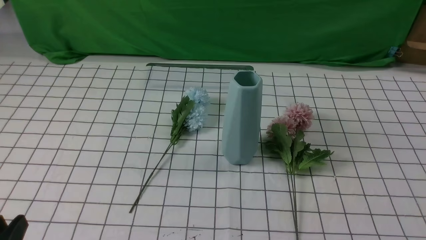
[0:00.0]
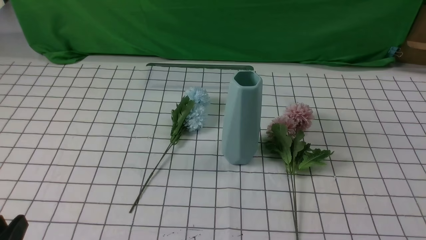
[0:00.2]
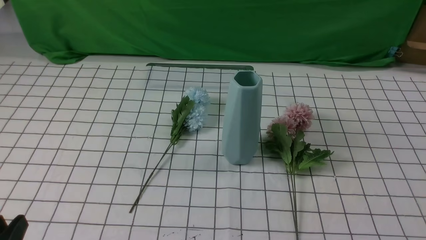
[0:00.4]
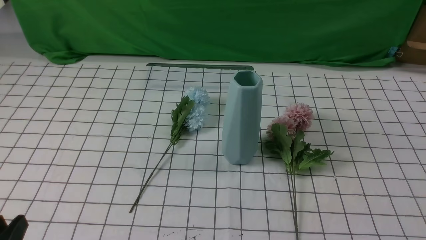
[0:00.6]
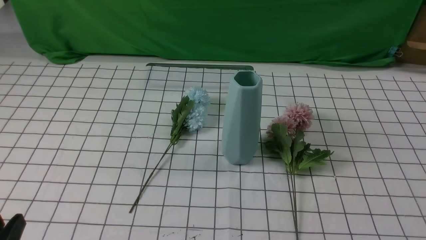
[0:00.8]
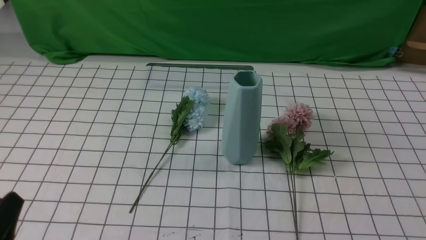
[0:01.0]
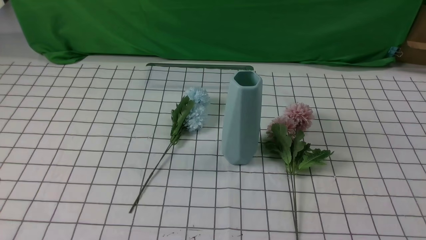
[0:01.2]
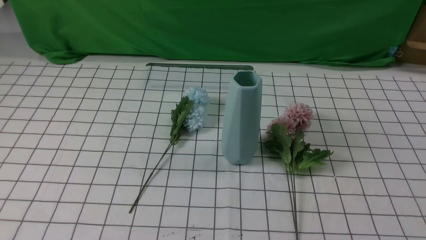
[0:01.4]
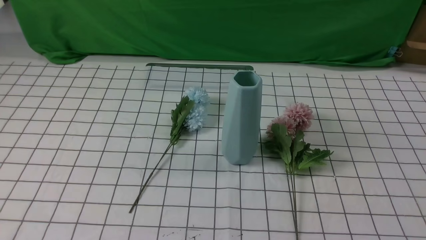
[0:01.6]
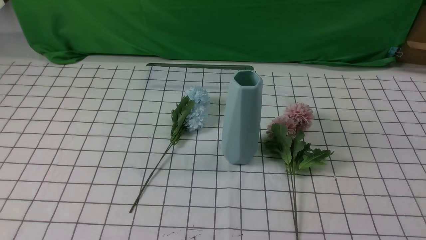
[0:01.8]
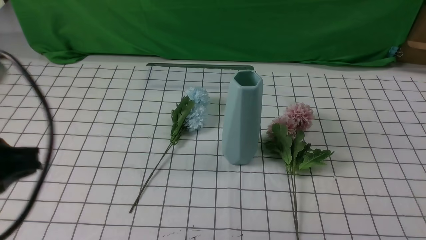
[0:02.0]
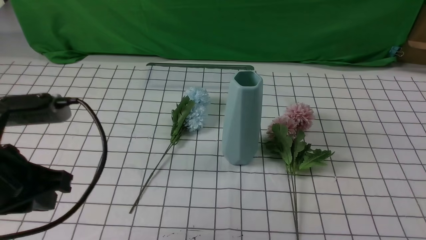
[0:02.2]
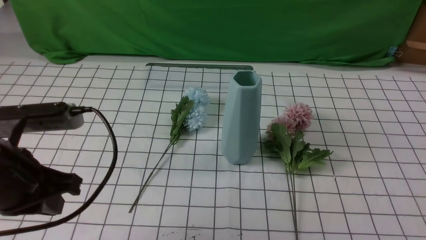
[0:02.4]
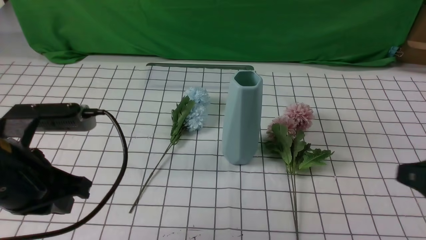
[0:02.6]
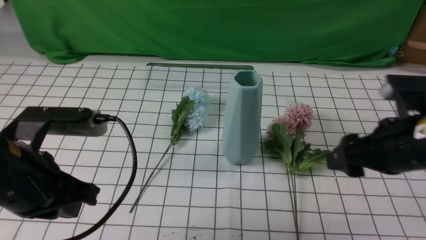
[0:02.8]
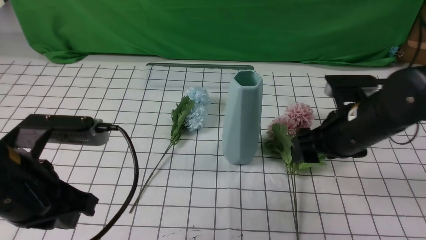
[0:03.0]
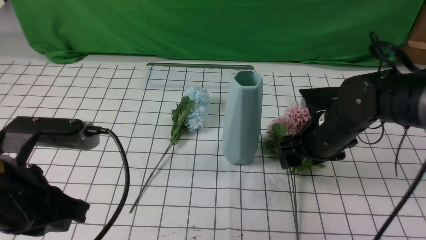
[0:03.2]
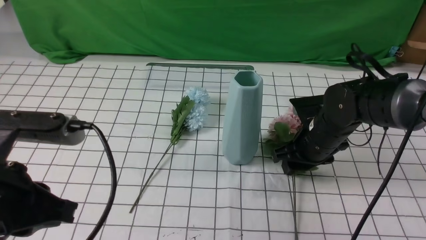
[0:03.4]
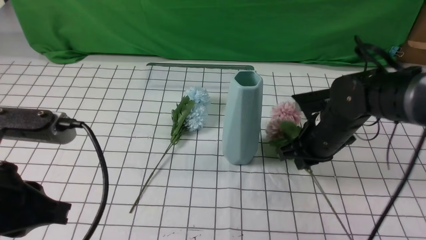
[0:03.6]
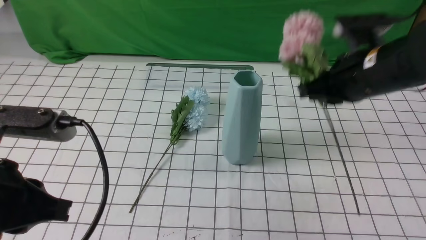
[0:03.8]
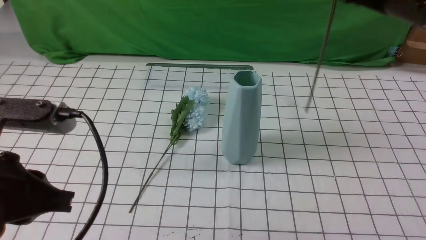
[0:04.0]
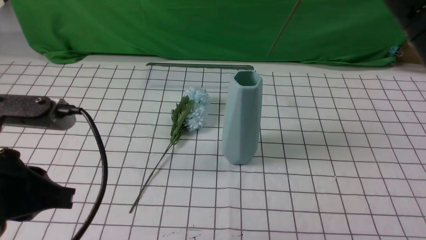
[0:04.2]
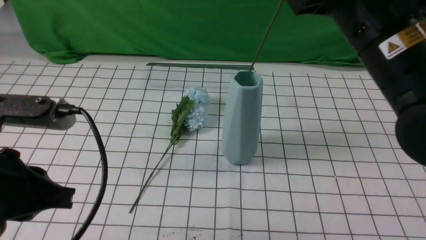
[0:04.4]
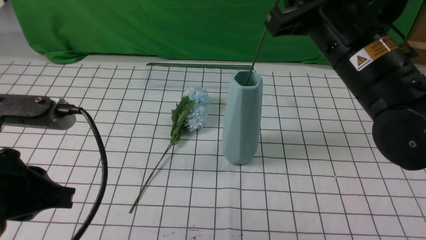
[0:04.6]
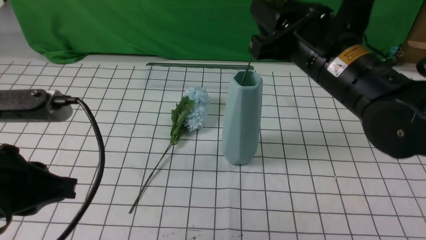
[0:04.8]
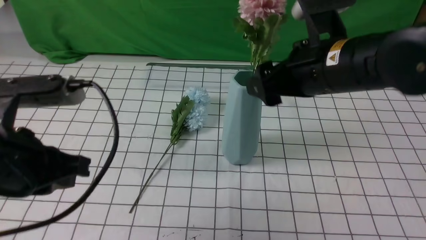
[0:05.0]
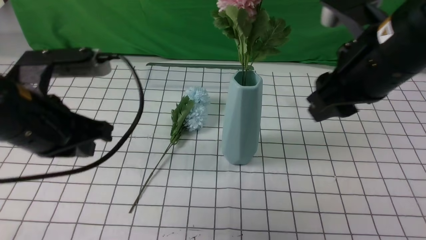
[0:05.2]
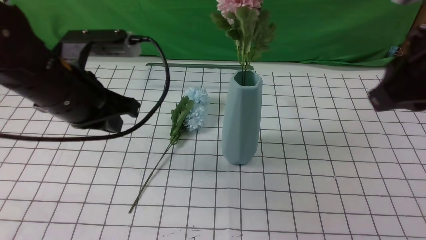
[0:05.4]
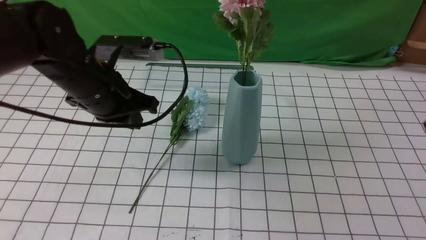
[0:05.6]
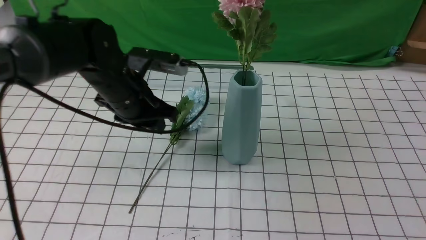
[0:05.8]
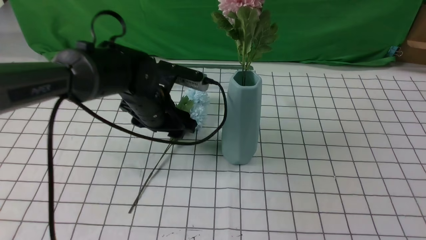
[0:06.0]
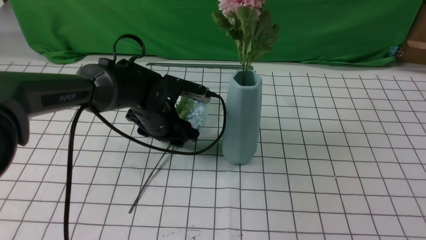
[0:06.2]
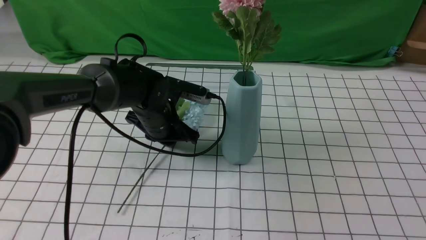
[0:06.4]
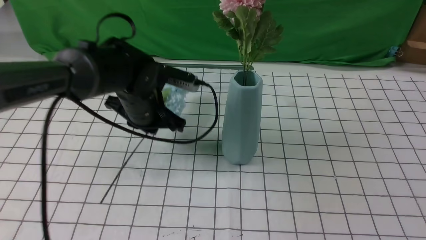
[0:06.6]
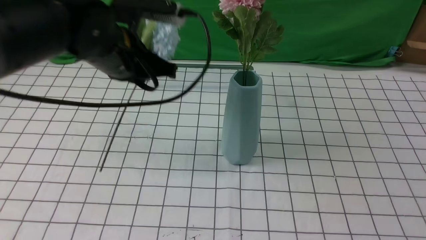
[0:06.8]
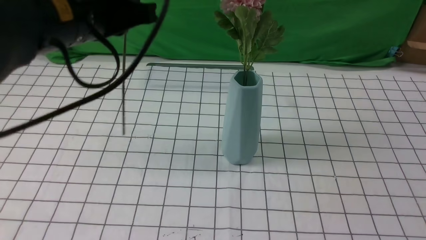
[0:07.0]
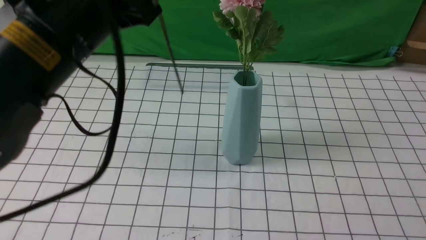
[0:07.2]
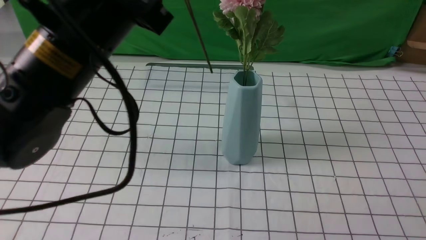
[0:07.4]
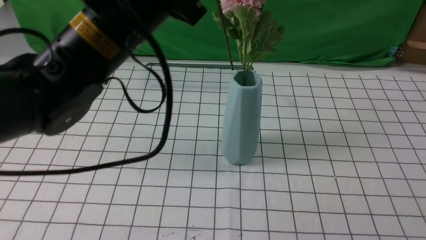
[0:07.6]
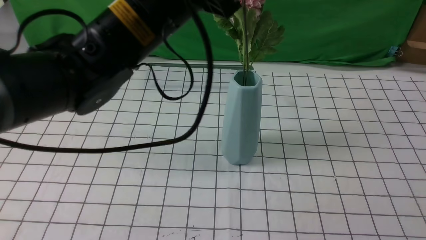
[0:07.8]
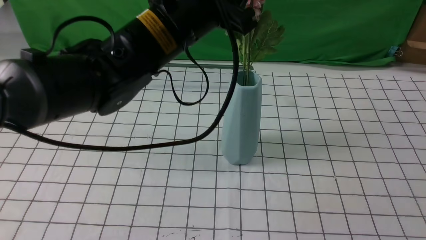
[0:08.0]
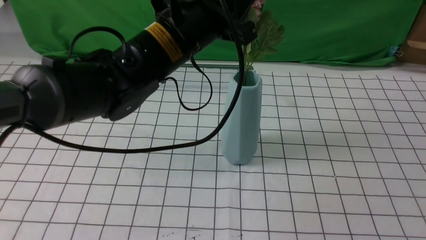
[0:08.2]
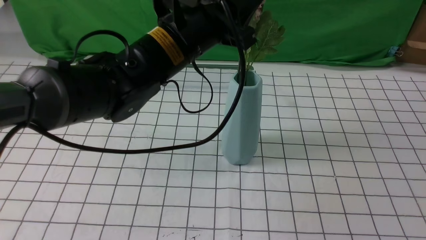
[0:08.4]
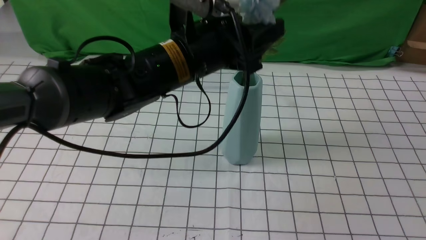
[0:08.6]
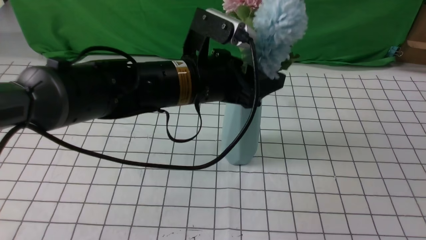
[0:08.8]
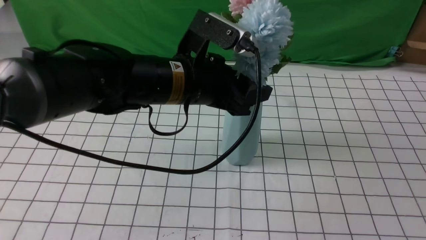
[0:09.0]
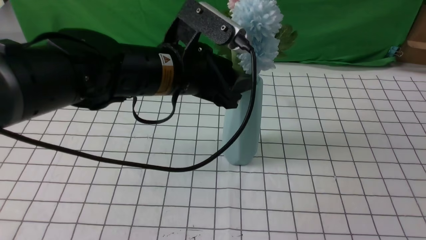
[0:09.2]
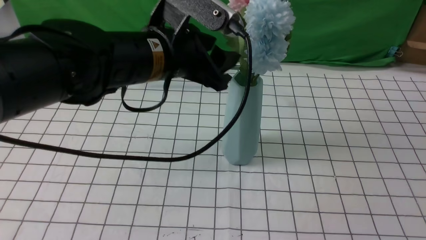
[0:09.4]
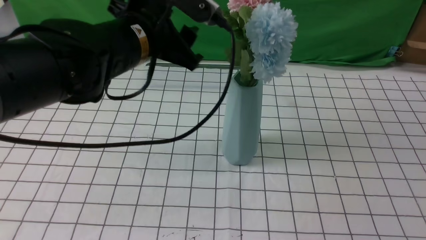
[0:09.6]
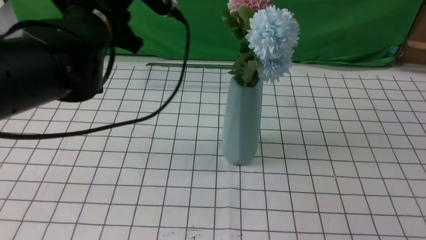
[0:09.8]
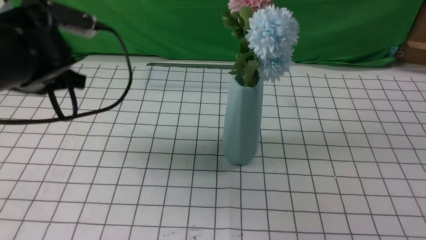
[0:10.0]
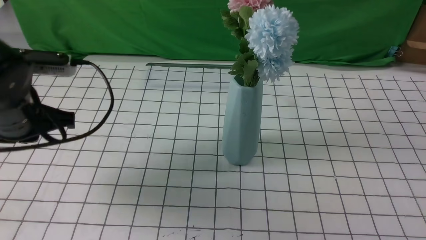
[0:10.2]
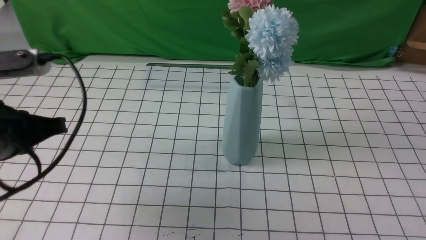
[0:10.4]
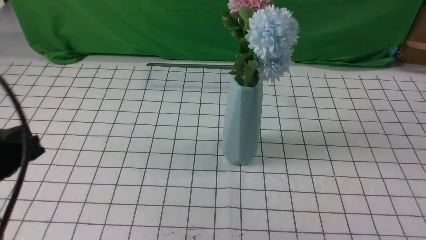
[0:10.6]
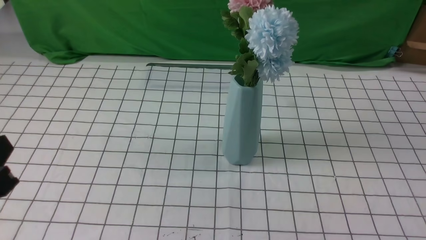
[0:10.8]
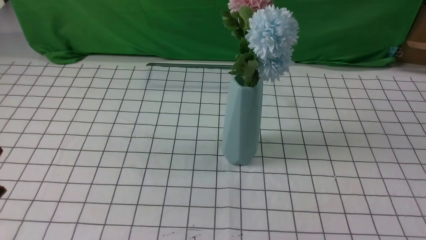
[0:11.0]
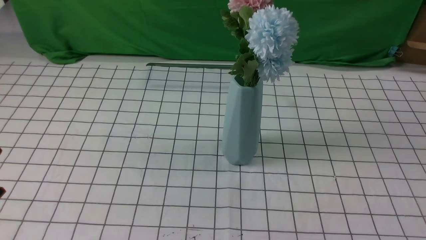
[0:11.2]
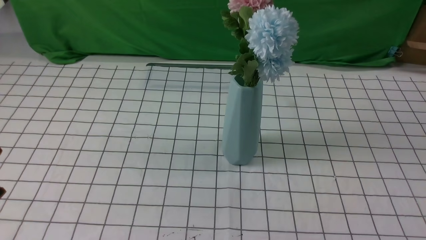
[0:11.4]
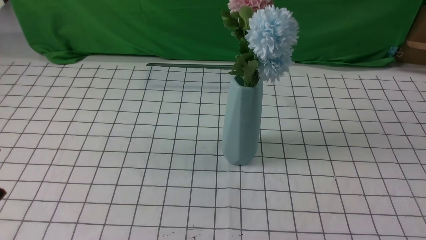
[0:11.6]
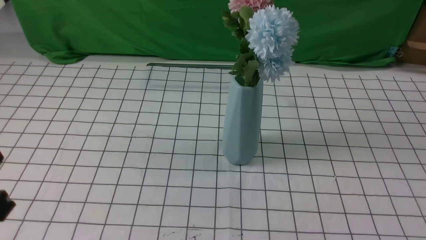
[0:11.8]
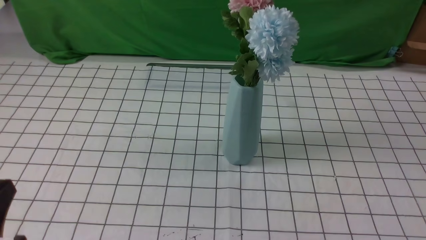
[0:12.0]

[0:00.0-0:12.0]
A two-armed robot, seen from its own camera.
Task of the whole recording: insert the flowers into the vase on the table with the white tablecloth.
Step, 0:00.0 to 0:03.4: use the right arm to grab a bunch of fresh flowers.
Step, 0:03.6 to 0:05.0: use the right arm to insert the flowers into the vase.
Step, 0:05.2 to 0:06.4: use the left arm to grab a bunch of fresh flowers.
Step, 0:06.6 to 0:09.2: use the left arm to insert the flowers into the vase.
0:01.6 to 0:03.0: The right gripper travels forward and to the left by roughly 30 cm, and opens, while the left gripper shifts about 15 cm forward and to the right.
0:03.0 to 0:04.4: The right gripper shifts roughly 15 cm upward, and closes up.
0:04.4 to 0:06.0: The left gripper travels forward, downward and to the right by approximately 30 cm, and opens its fingers. Meanwhile the right gripper is displaced backward and to the right by some 20 cm, and opens, then closes once more.
0:06.0 to 0:07.6: The left gripper goes about 20 cm upward and backward, and closes its fingers.
0:07.6 to 0:09.0: The left gripper is displaced downward and to the right by some 10 cm, and opens up.
0:09.0 to 0:10.4: The left gripper moves to the left and backward, roughly 20 cm, and closes up.
0:10.4 to 0:12.0: The left gripper heads backward and downward, covering roughly 15 cm; the right gripper changes place by about 5 cm.

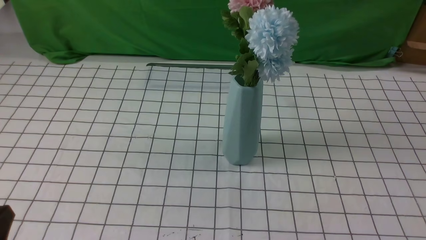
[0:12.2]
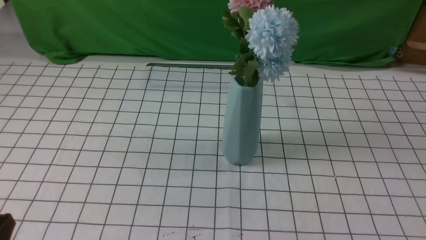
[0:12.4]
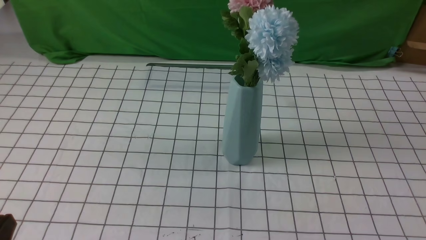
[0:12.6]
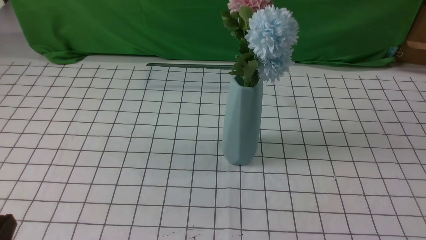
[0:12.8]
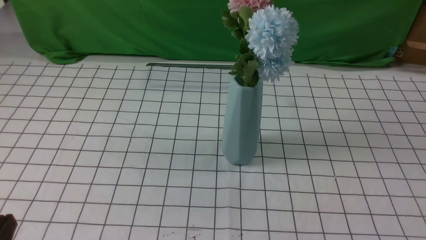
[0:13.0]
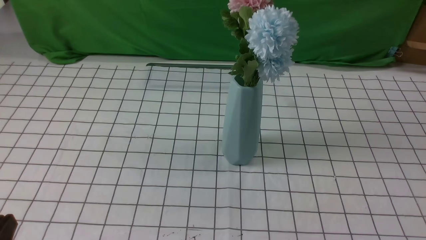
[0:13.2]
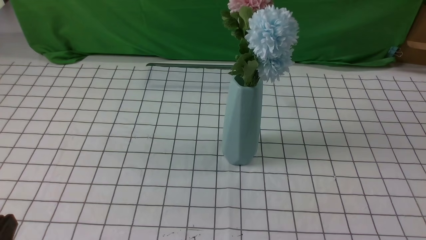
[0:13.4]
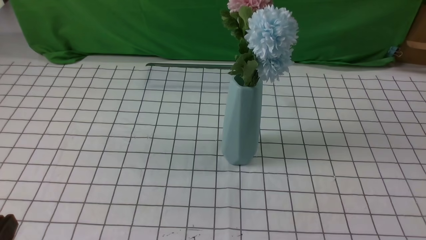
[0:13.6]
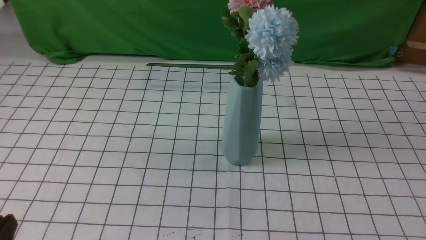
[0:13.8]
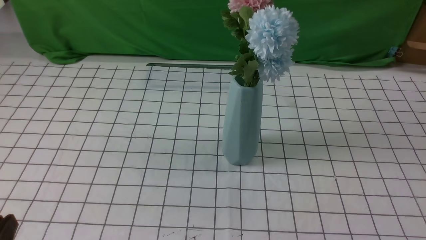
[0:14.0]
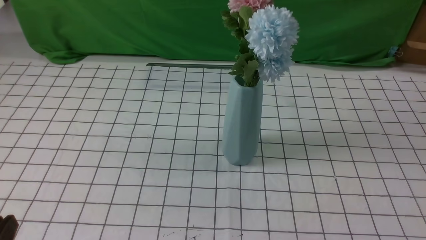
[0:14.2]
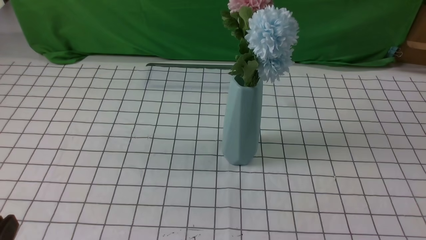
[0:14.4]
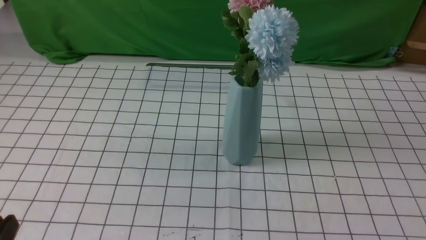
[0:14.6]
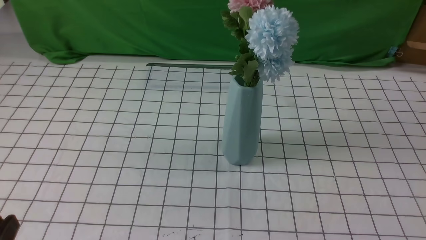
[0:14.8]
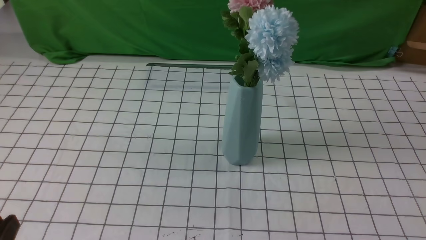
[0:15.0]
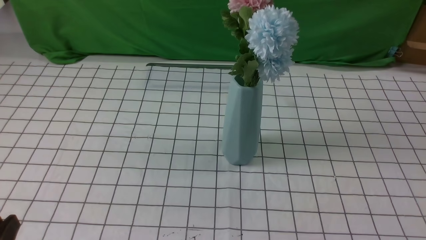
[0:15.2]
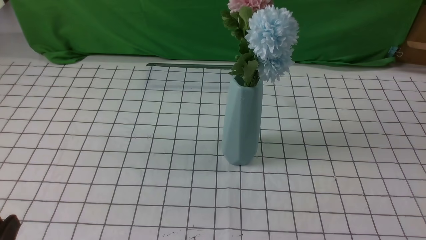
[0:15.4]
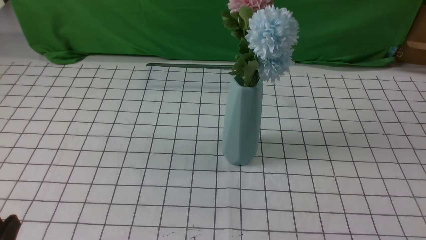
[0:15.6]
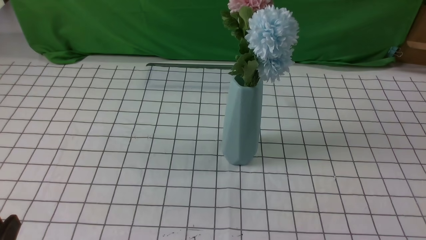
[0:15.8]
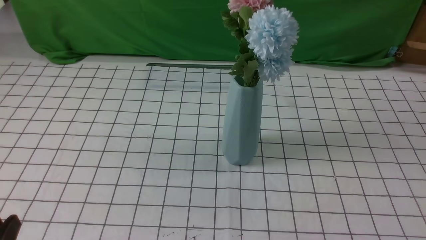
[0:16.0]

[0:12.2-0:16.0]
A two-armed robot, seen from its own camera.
Task of the whole recording: insert the flowers into the vase on the table with the white tablecloth.
0:12.2 to 0:13.4: Both grippers stay about where they are.
0:14.8 to 0:16.0: Neither gripper changes place.
